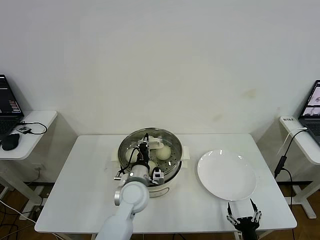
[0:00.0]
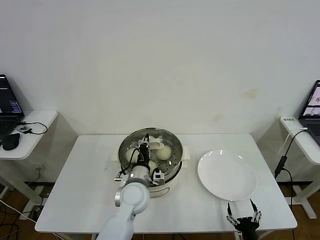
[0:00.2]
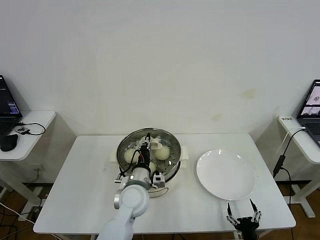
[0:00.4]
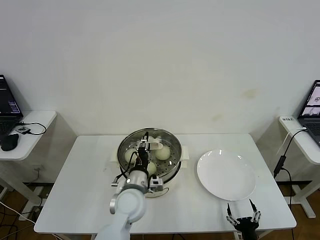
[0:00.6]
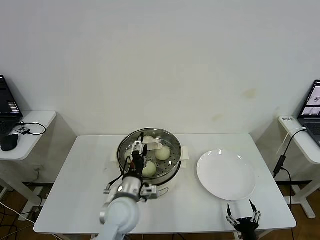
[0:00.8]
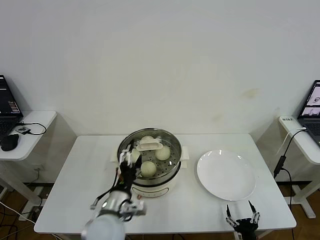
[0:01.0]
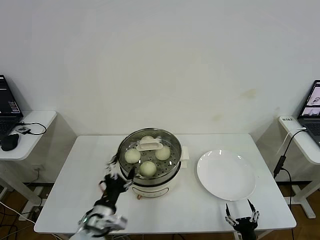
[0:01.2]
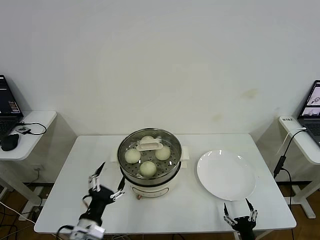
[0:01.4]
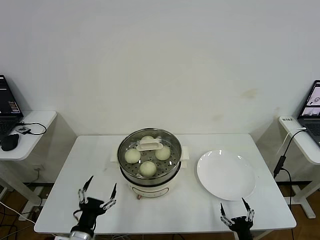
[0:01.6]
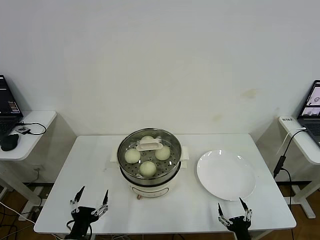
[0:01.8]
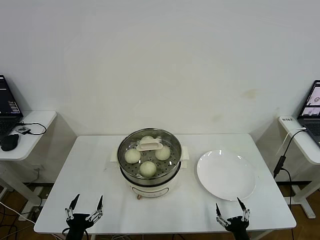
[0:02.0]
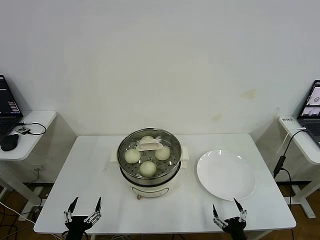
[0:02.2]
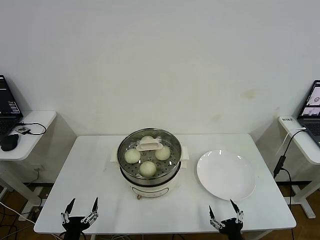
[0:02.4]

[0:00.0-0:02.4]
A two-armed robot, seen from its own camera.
0:00.0 to 0:01.2: The left gripper goes some 15 cm backward and to the left, and opens up.
0:01.2 to 0:02.4: The left gripper is displaced to the left, downward and backward by roughly 20 cm.
